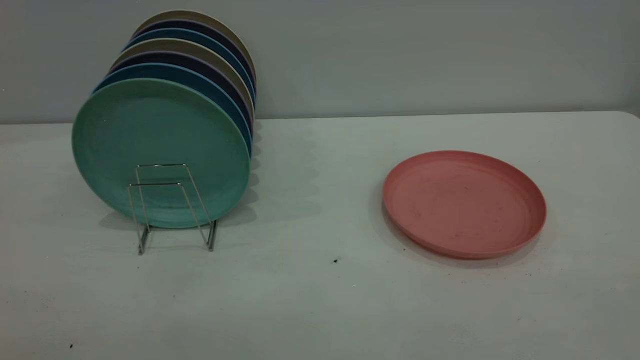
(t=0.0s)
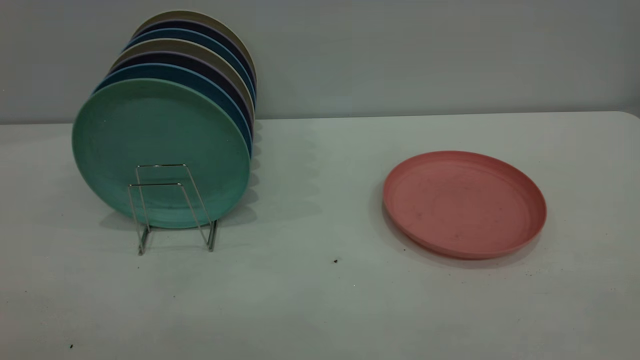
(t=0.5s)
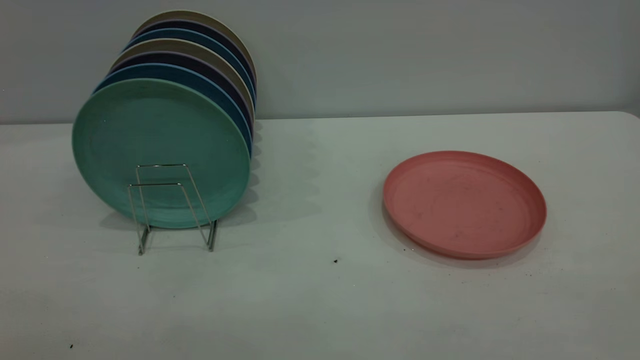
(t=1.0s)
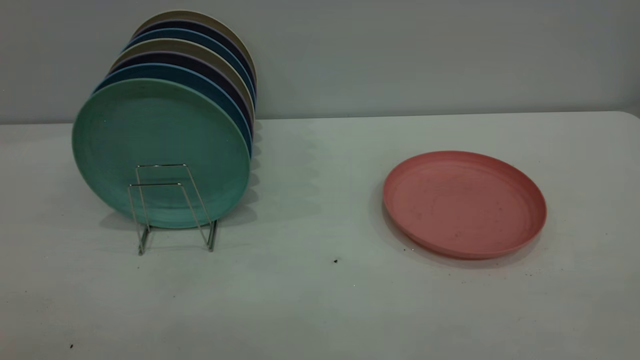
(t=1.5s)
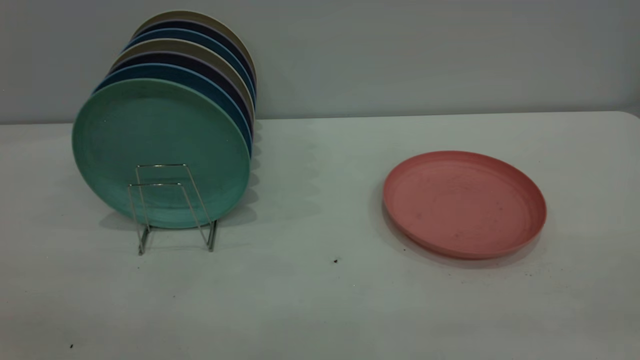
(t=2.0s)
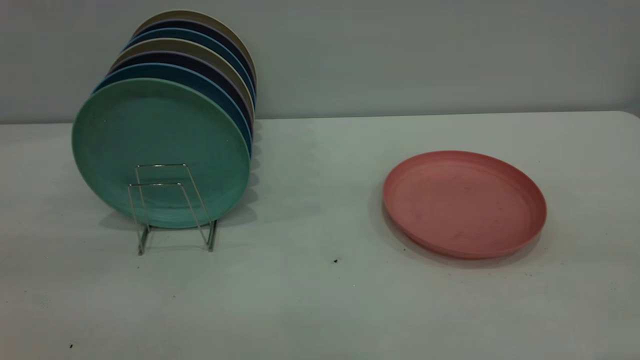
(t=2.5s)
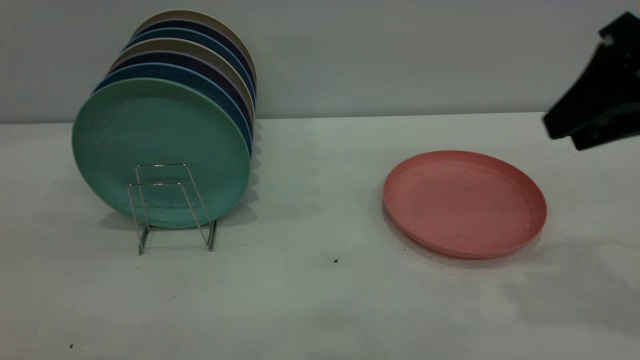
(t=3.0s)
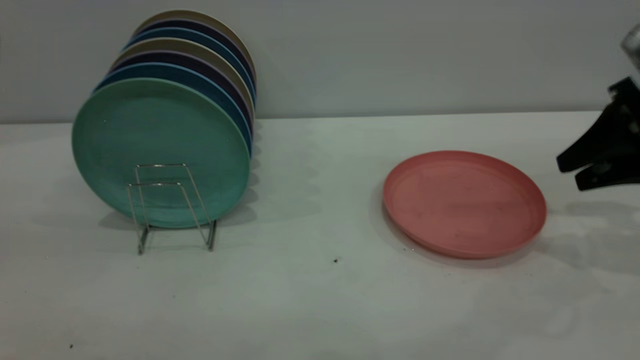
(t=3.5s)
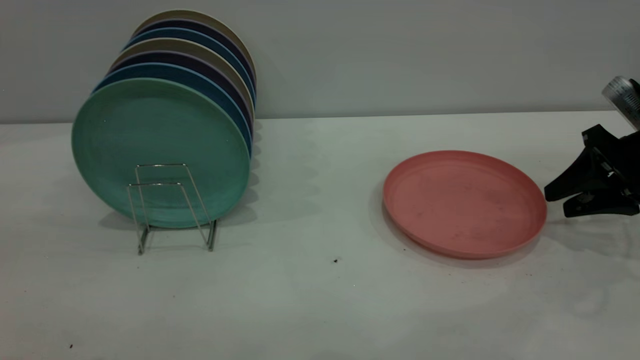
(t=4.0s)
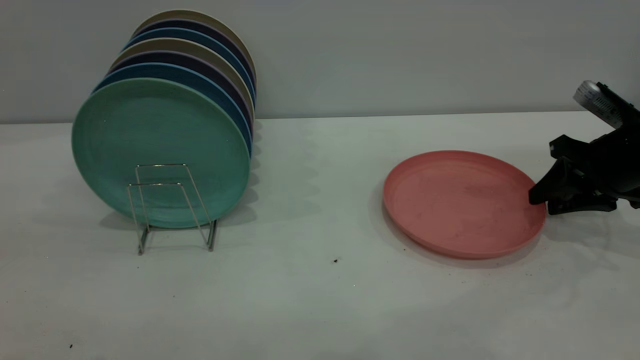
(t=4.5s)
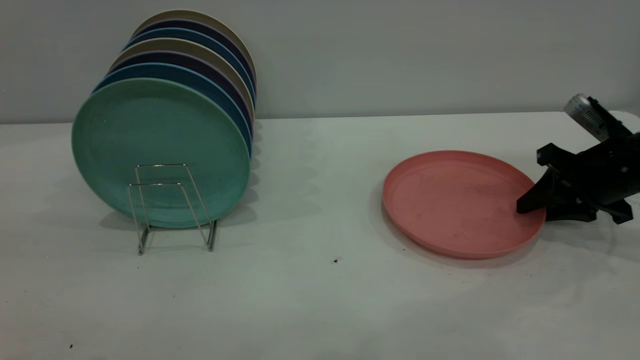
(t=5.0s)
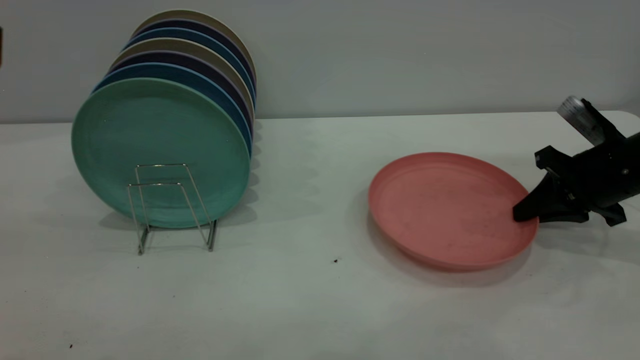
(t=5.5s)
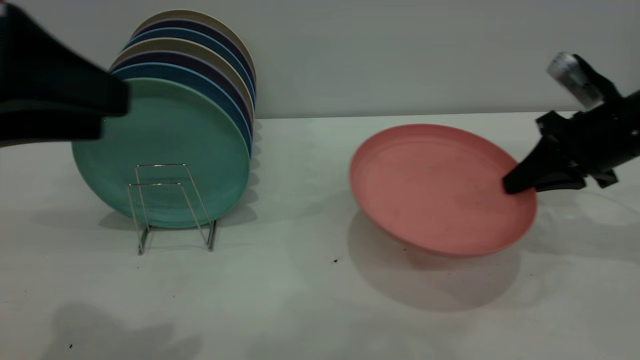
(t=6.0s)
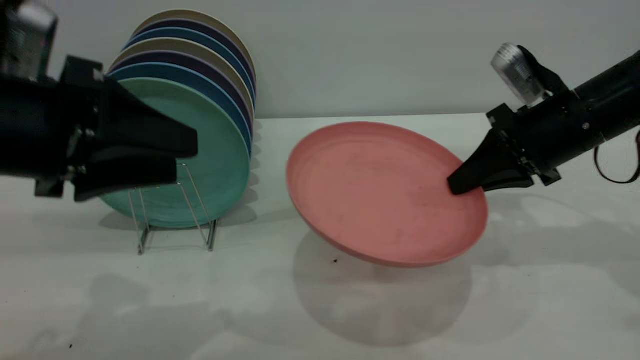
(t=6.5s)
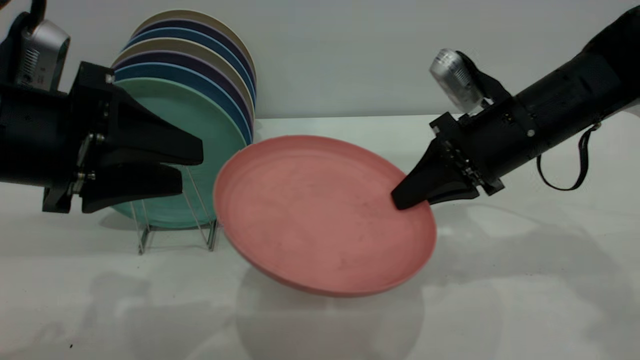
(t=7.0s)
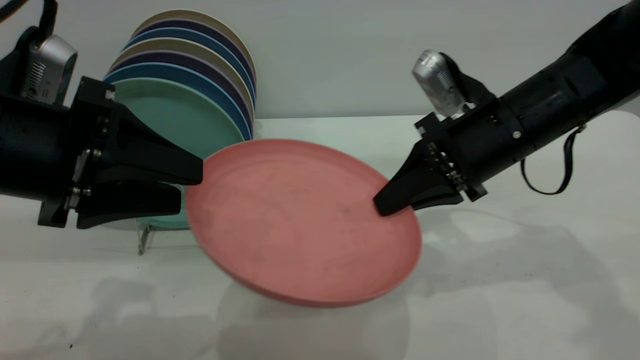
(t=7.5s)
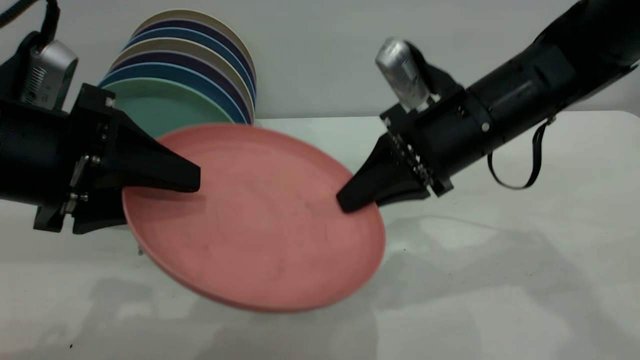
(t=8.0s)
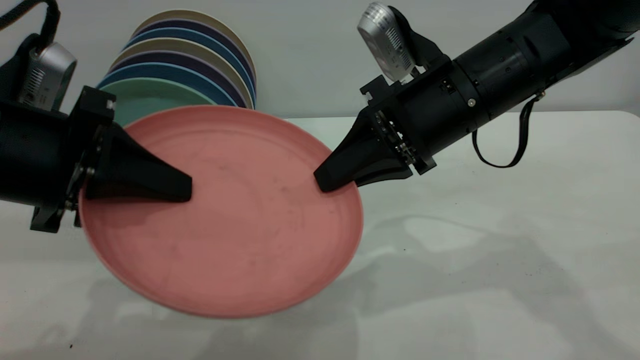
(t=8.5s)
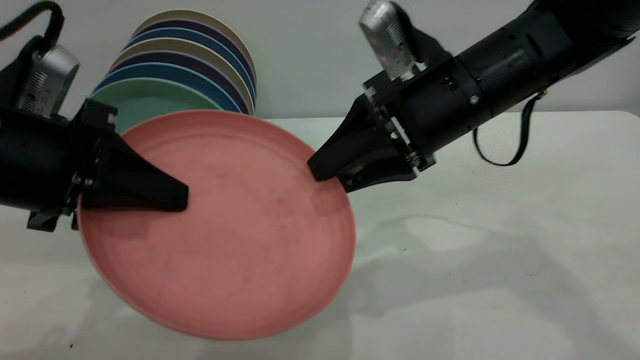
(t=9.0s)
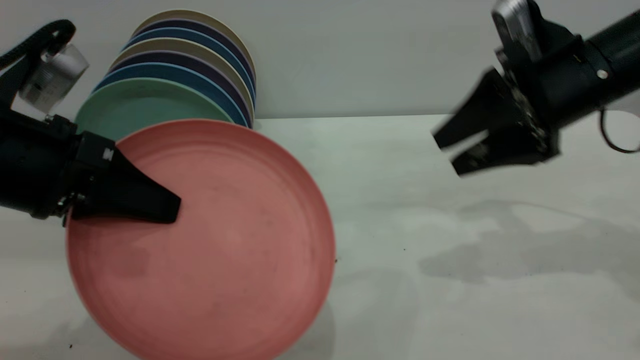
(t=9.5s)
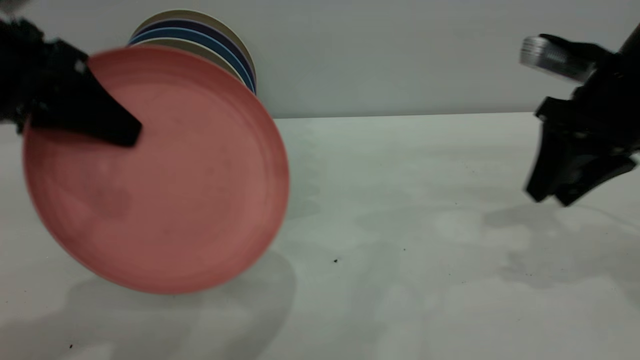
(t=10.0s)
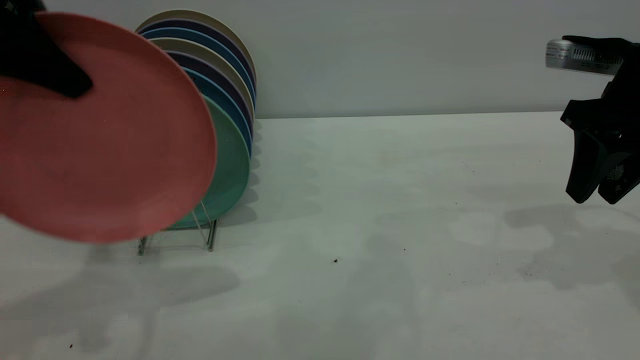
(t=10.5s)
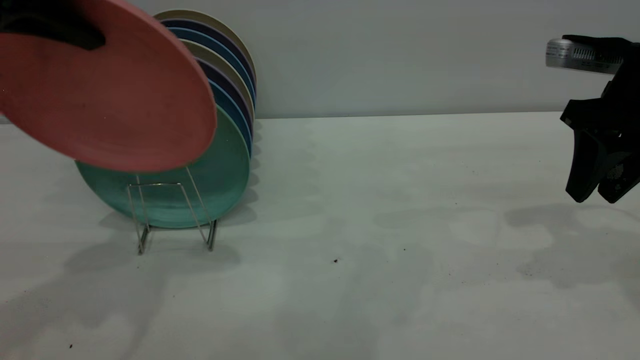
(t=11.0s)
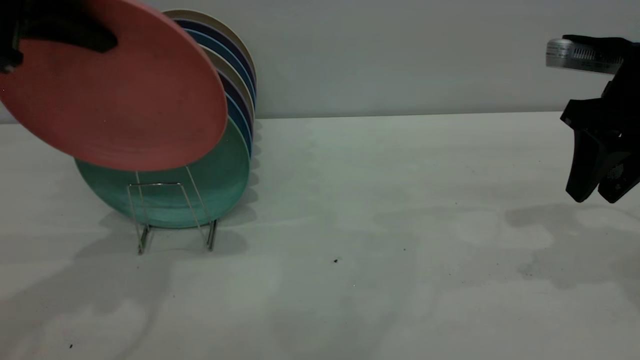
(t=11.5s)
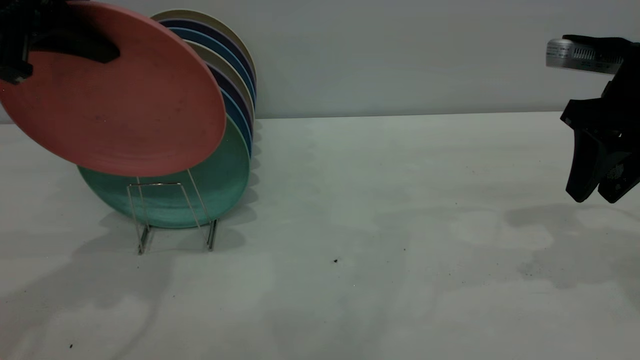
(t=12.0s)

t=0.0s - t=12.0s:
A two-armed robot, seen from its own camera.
Task of the whole recording: the right gripper grasp the pink plate, the right gripper pass the pink plate to the left gripper, and the left gripper place the pink plate on the plate rack.
Step, t=0.0s - t=5.5s: Pick up the plate with the right gripper.
Step, t=6.0s - t=9.0s: Pass the plate from the right gripper to the left gripper.
t=2.0s - t=4.0s: The right gripper moves forward and downward, about 40 cm.
t=4.0s - t=6.0s: The left gripper shifts approximately 10 cm downward and forward; the right gripper heads to the left, covering approximately 5 cm, and closes up.
t=6.0s - t=8.0s: The right gripper shifts about 15 cm to the left. The left gripper goes roughly 10 cm downward.
t=8.0s - t=10.0s: The left gripper shifts some 5 cm upward, and closes up. The right gripper goes some 15 cm to the right, and opens.
t=10.0s - t=12.0s: The left gripper travels forward by some 5 cm.

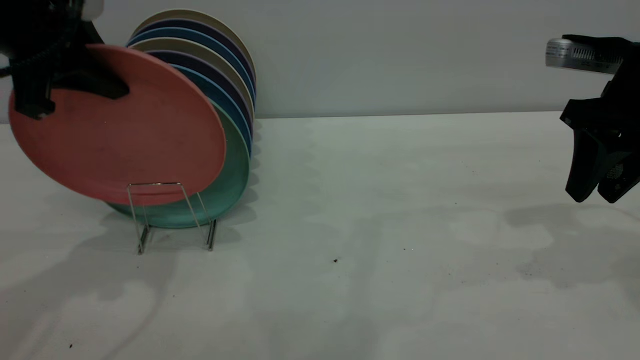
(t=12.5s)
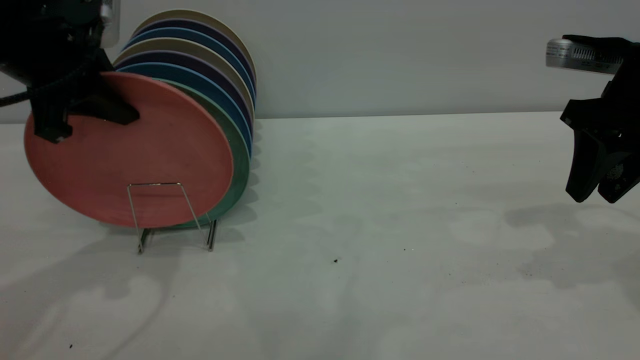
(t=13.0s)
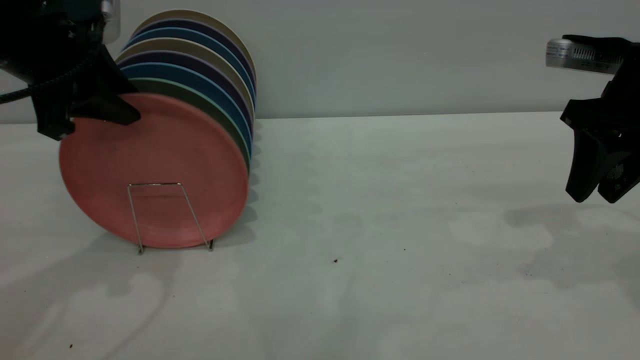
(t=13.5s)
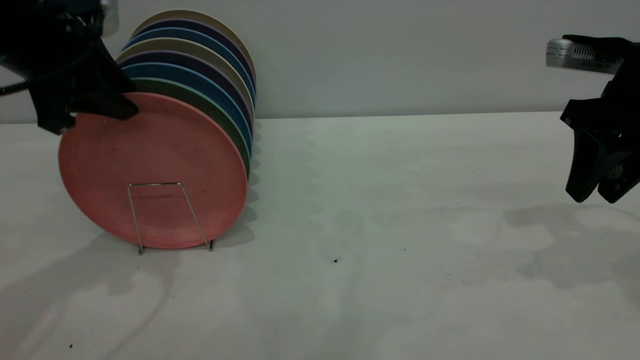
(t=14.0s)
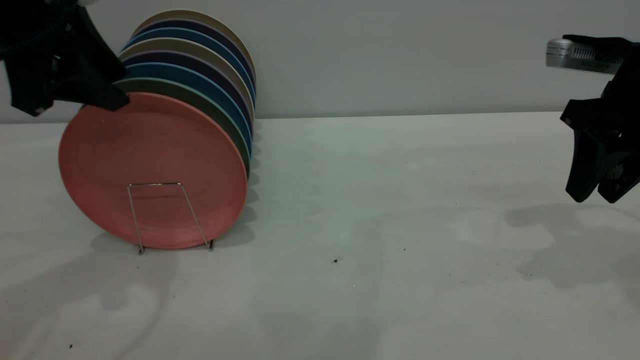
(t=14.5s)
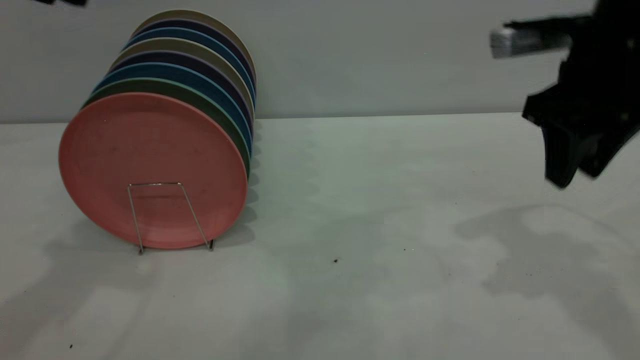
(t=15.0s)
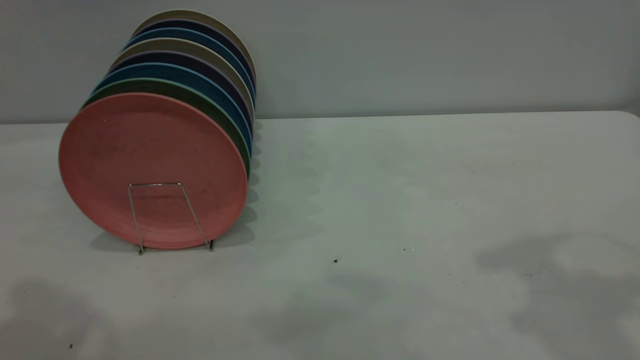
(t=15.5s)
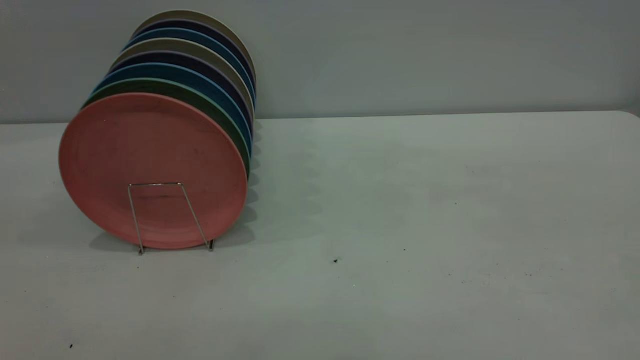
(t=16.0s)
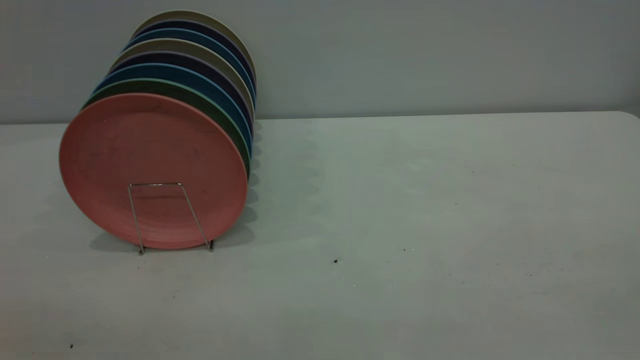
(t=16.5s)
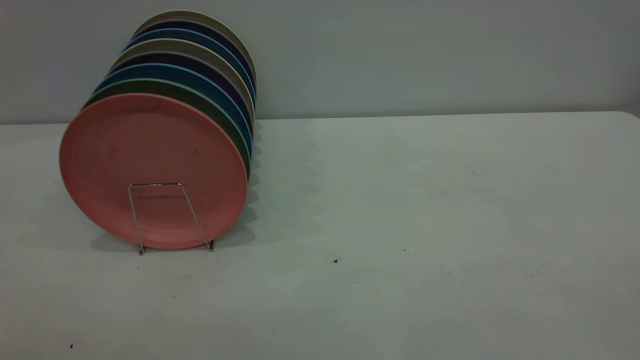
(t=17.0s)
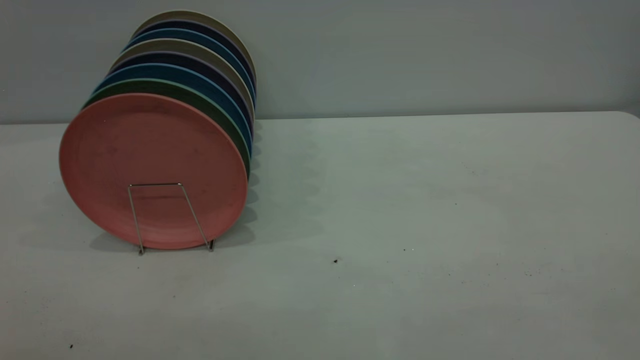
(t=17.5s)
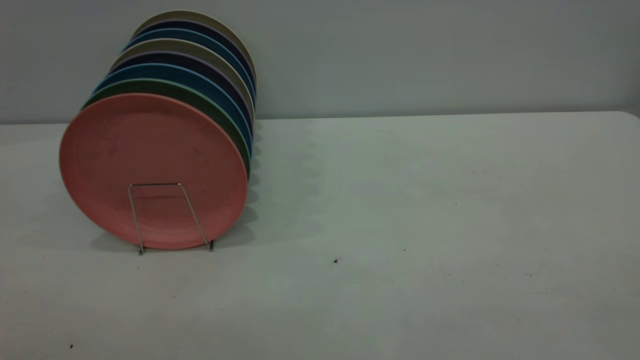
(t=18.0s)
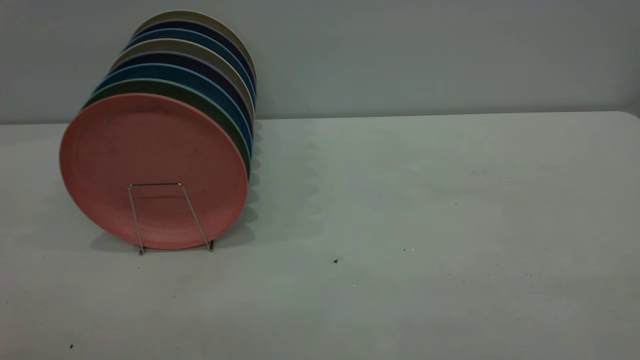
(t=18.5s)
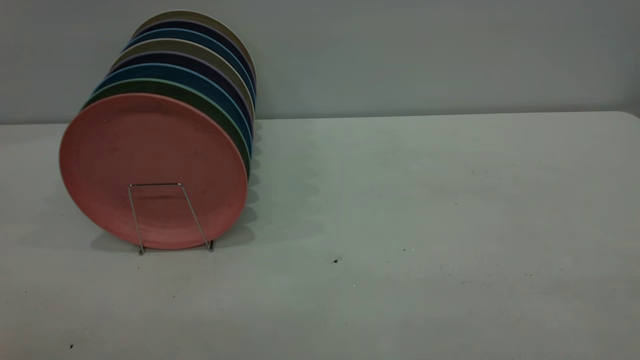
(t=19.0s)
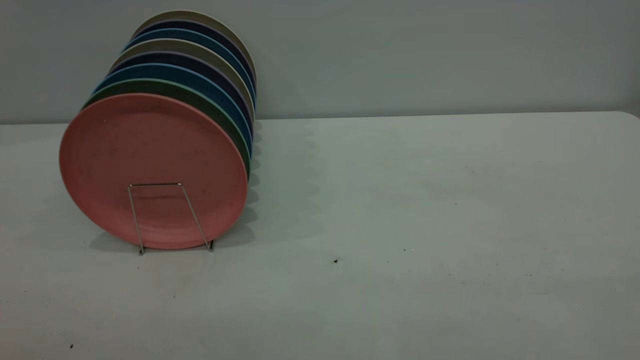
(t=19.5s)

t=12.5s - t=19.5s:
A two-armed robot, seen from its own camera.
Task of the whole recording: the right gripper grasp the pink plate, the right gripper pass the pink plate to the left gripper, and the left gripper place the pink plate on the plate rack.
Step, t=12.5s - t=14.5s: Place the plate on the shelf.
t=12.5s - t=14.5s: The left gripper opens its fingers.
t=14.5s - t=16.0s: The two grippers go approximately 30 cm backward and upward.

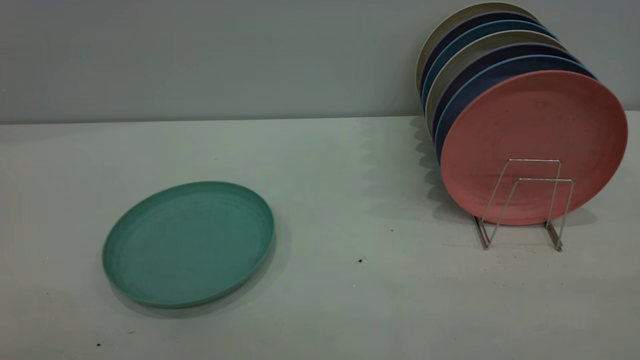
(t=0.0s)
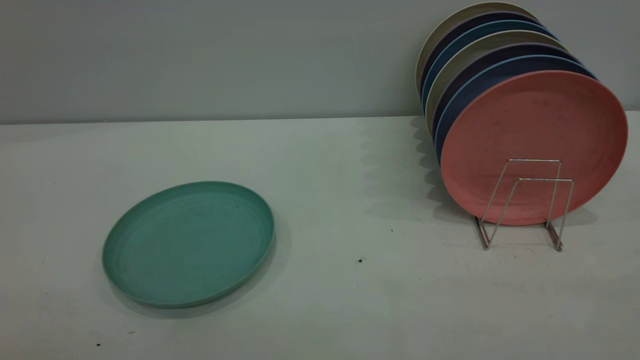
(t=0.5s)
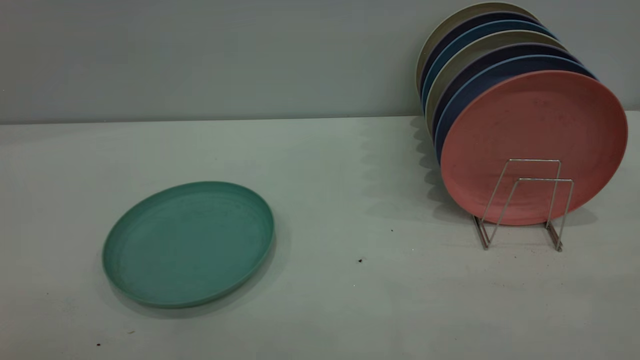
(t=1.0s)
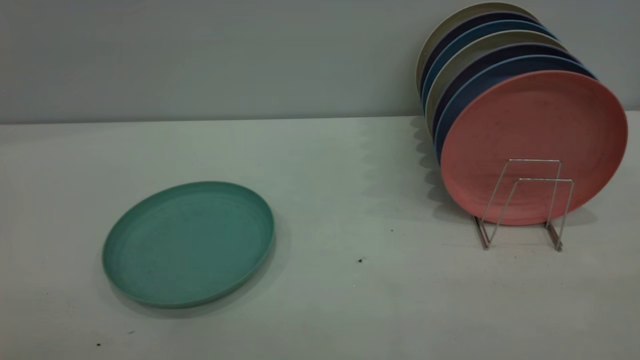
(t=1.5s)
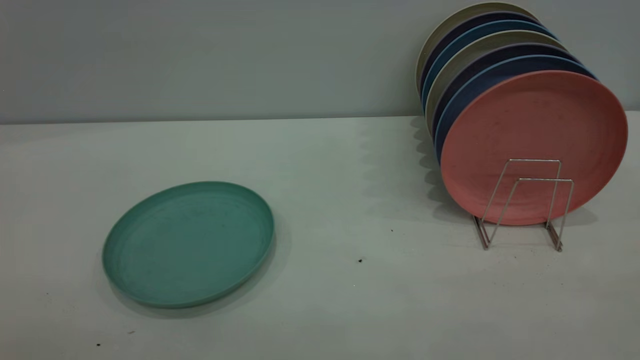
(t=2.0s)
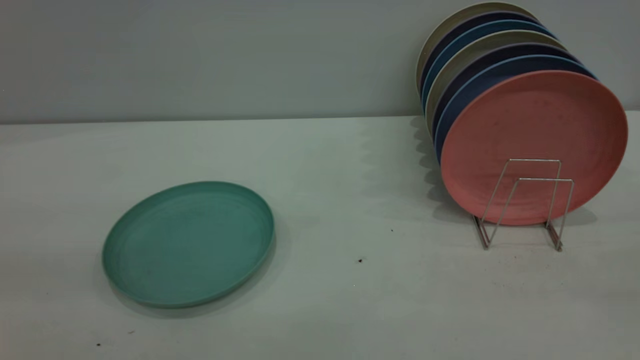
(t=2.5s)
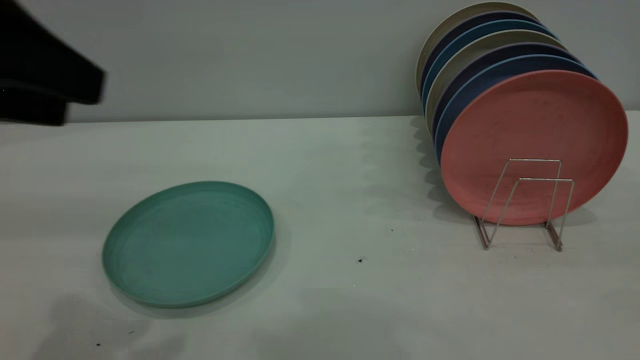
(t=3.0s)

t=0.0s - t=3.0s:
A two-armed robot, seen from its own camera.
Task of the whole recording: the left gripper grasp the green plate, the left gripper pass the green plate to the right gripper, and the right gripper place the green plate on the plate rack.
t=0.0s - t=1.5s: The two grippers keep their place.
t=1.5s - t=3.0s: The left gripper travels forward by about 25 cm.
